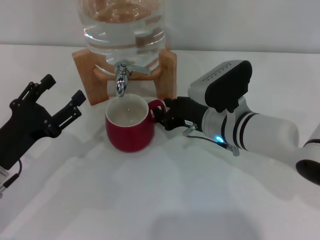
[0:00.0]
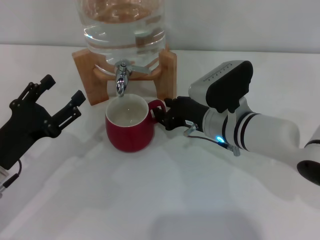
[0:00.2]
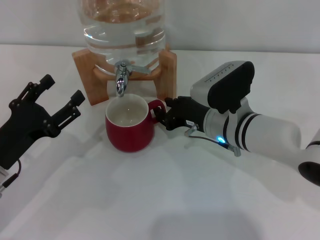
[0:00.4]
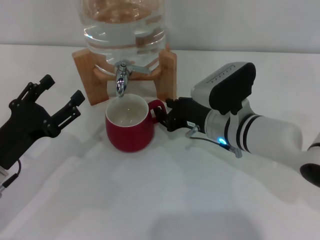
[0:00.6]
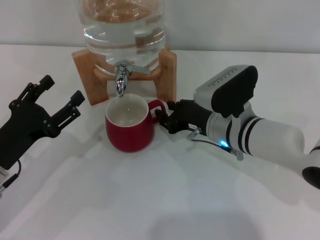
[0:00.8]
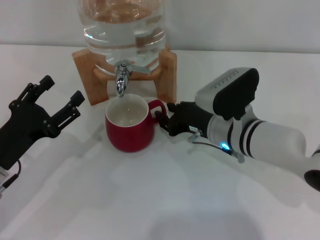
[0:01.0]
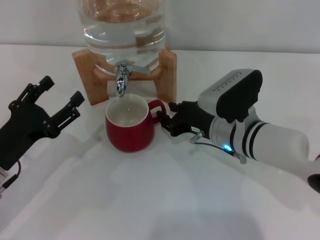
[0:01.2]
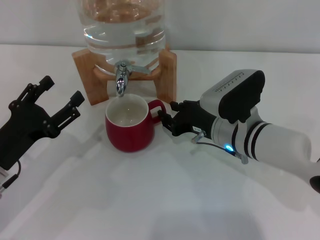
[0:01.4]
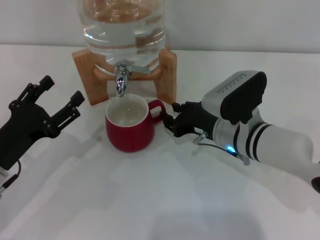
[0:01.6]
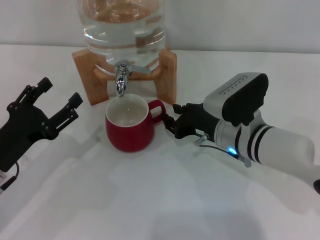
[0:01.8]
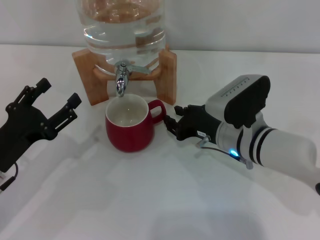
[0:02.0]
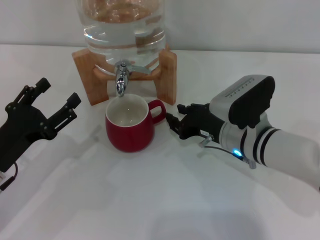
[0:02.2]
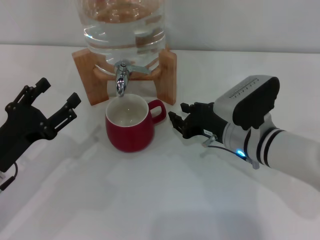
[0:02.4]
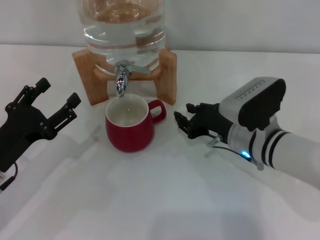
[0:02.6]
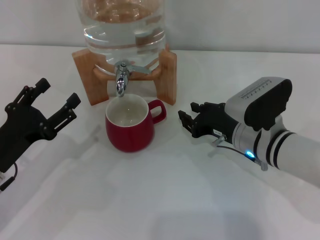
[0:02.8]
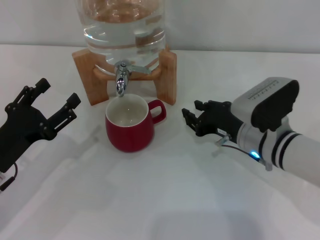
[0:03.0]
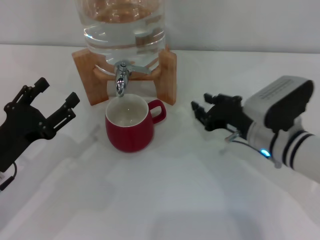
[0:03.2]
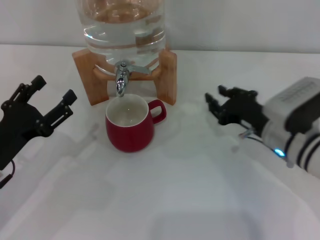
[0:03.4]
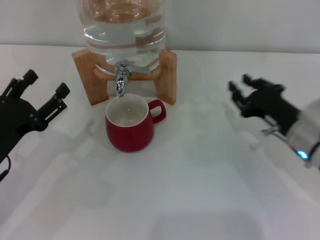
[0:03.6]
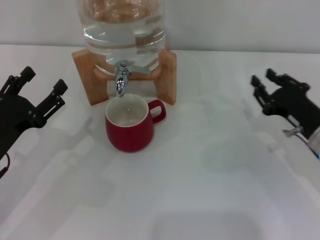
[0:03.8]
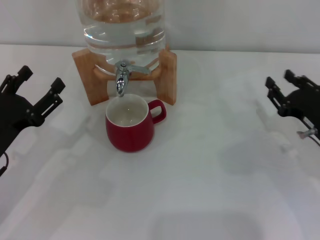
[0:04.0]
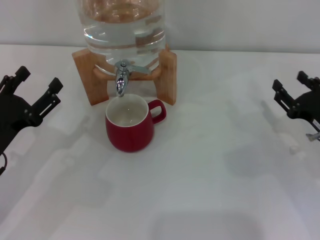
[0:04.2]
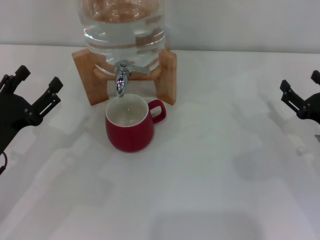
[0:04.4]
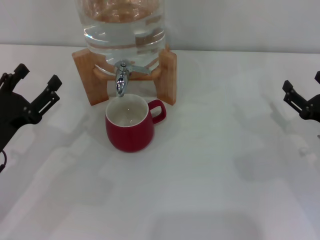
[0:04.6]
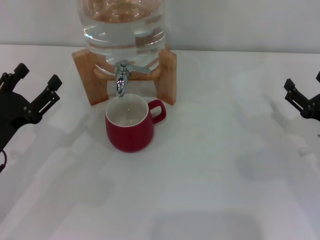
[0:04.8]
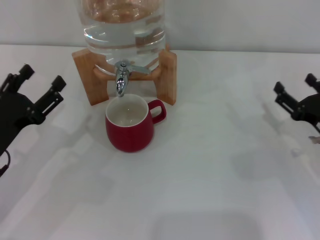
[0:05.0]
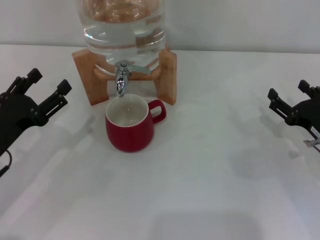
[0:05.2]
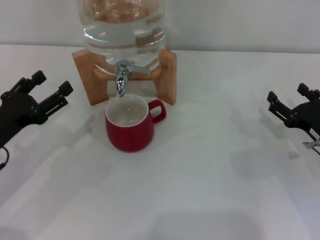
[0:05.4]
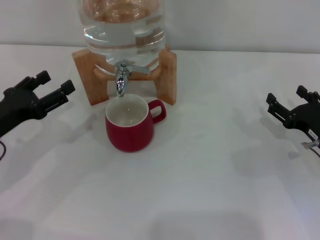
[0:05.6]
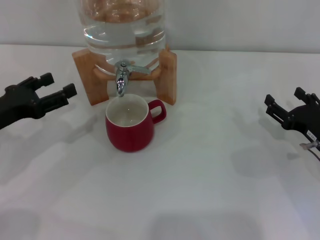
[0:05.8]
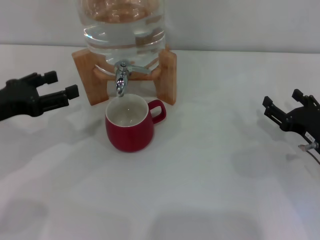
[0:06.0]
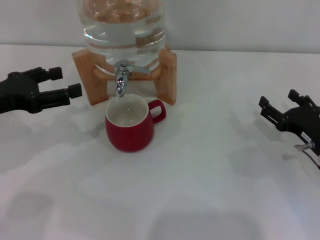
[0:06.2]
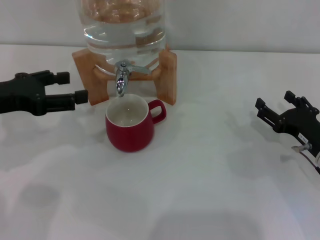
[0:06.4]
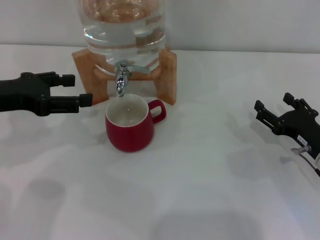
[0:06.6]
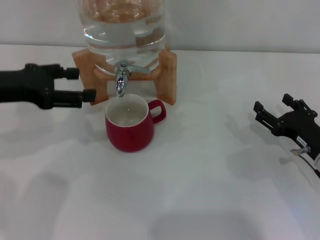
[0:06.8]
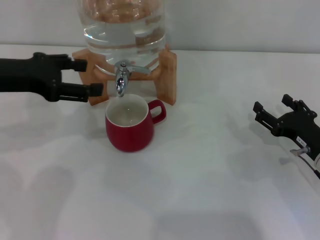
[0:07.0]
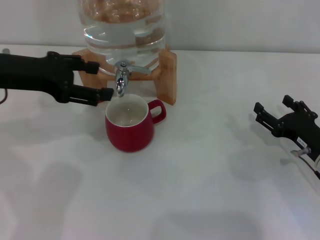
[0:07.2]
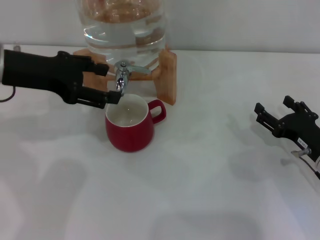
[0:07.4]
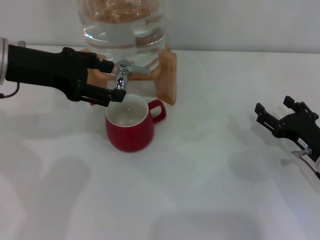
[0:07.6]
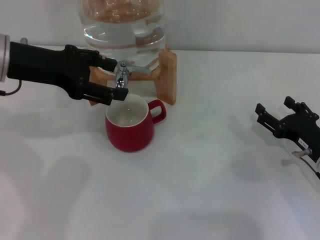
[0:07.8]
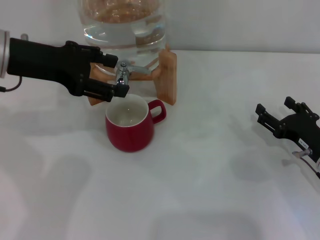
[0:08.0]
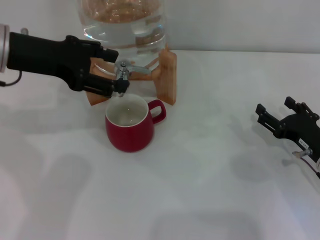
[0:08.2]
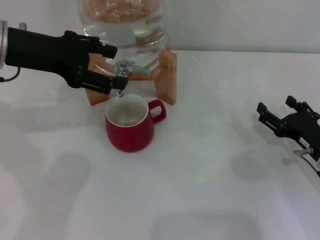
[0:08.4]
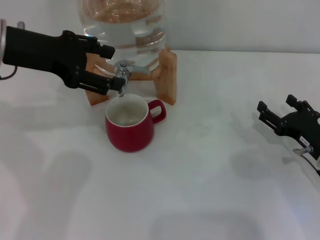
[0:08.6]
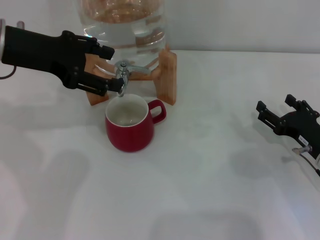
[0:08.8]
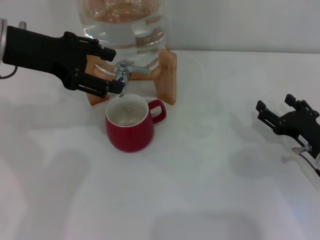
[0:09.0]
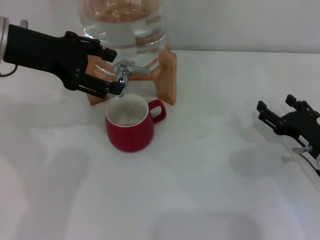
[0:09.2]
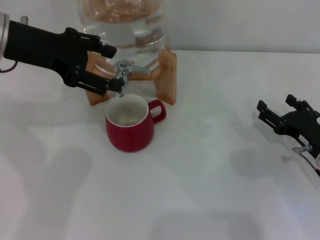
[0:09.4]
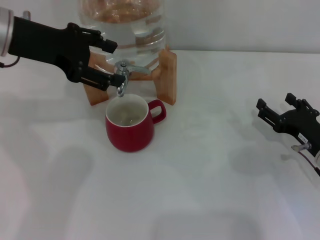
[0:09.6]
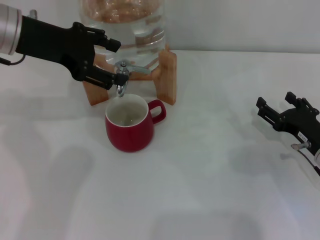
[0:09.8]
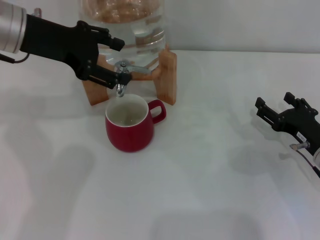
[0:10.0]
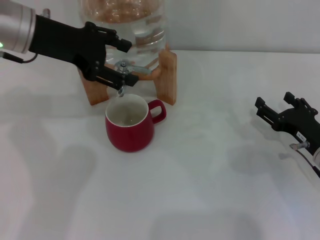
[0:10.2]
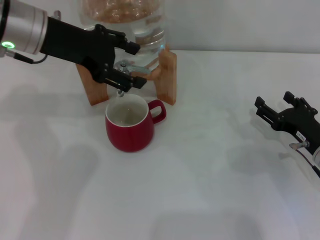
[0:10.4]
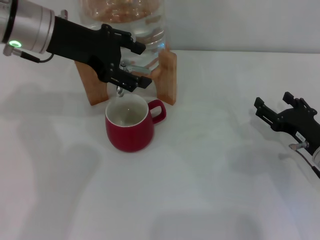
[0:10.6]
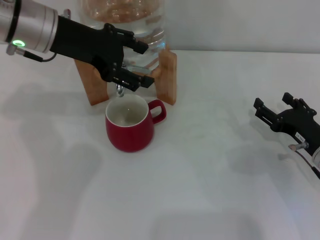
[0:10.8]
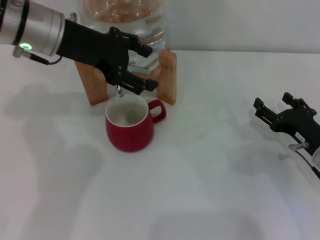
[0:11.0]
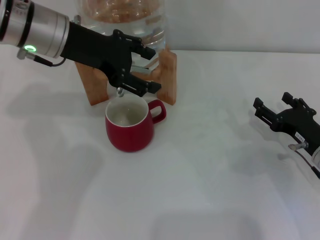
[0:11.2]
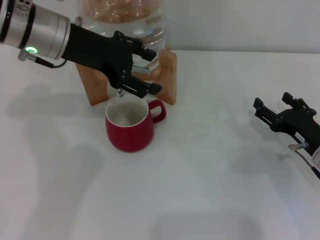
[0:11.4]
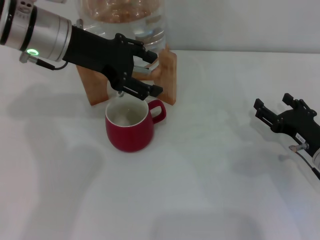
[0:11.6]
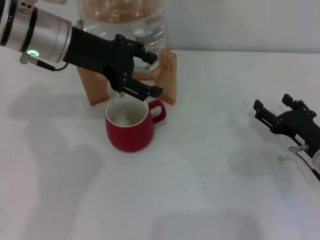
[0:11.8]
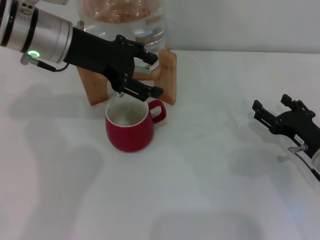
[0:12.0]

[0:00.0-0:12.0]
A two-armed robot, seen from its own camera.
Task of the whole recording: the right gripper pick up the red cup and place it horizontally under the faucet, the left gripper turn on the faucet to fill the cup, and then turn off the faucet.
Step, 0:00.0 to 0:02.6: Move the cup beneath the water dispenser nozzle with the right gripper.
0:00.0 to 0:01.6: The grippers make only small movements.
0:01.6 to 0:03.0: There are only small adjustments of the grippers.
0:03.0 to 0:04.4: The right gripper goes some 15 cm to the right, and opens up.
0:04.4 to 0:06.0: The left gripper is displaced upward by about 5 cm.
0:06.0 to 0:07.6: The left gripper travels upward, to the right and forward by roughly 15 cm.
0:07.6 to 0:09.0: The grippers move only a little.
0:09.0 to 0:10.4: The grippers make only small movements.
0:10.4 to 0:12.0: The grippers move only a little.

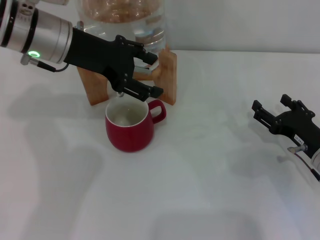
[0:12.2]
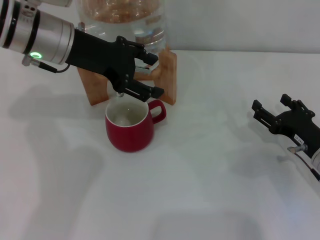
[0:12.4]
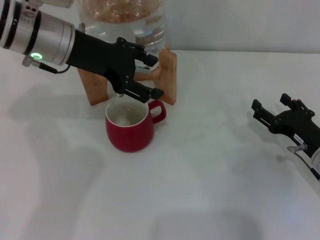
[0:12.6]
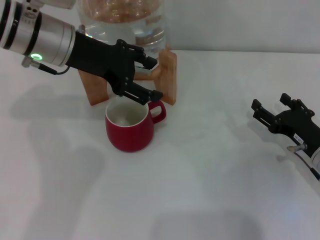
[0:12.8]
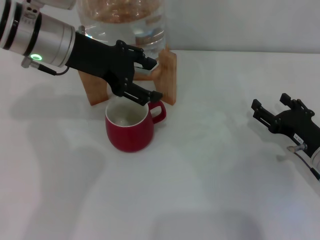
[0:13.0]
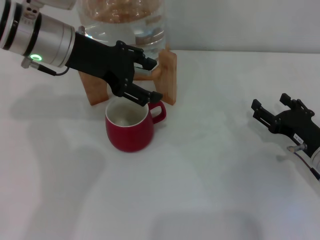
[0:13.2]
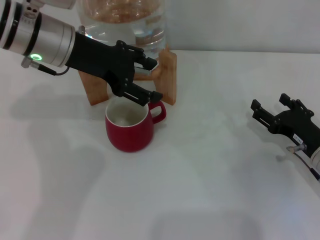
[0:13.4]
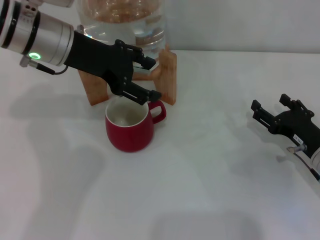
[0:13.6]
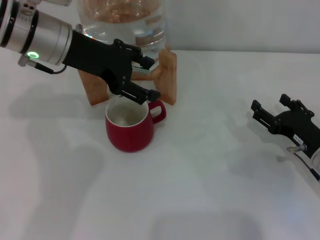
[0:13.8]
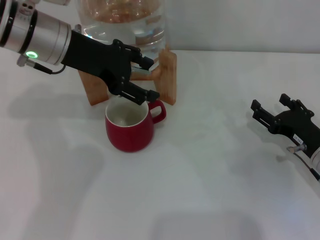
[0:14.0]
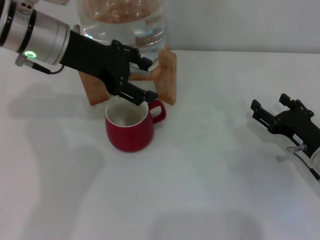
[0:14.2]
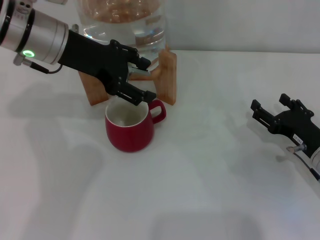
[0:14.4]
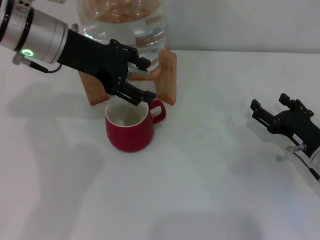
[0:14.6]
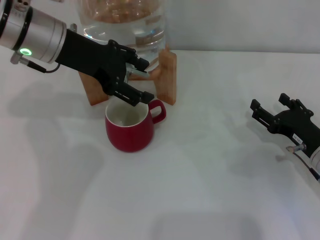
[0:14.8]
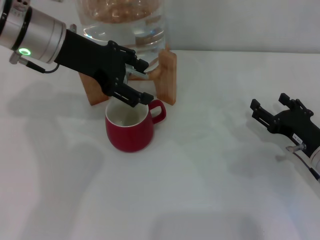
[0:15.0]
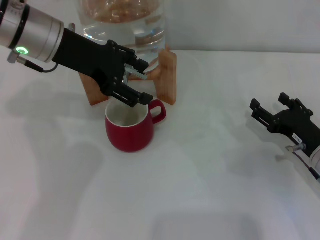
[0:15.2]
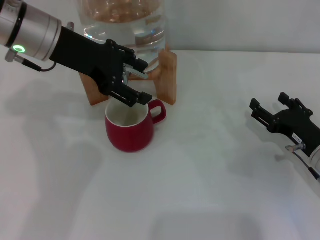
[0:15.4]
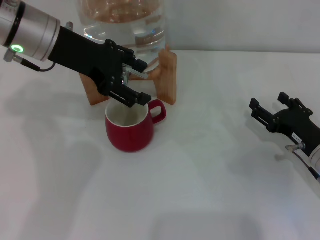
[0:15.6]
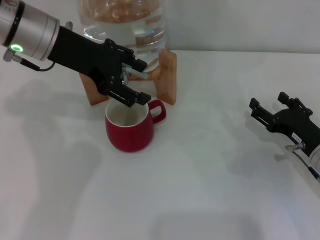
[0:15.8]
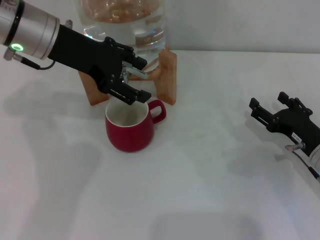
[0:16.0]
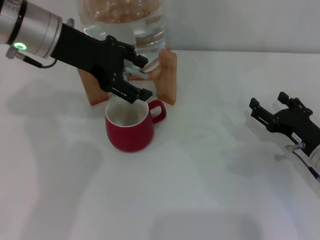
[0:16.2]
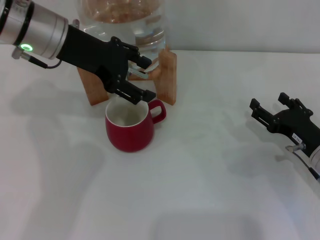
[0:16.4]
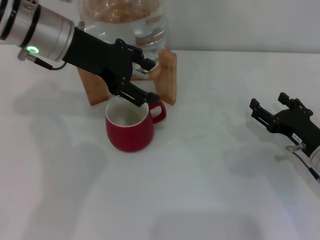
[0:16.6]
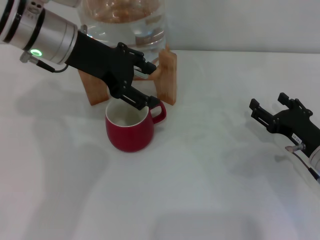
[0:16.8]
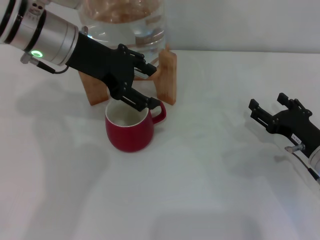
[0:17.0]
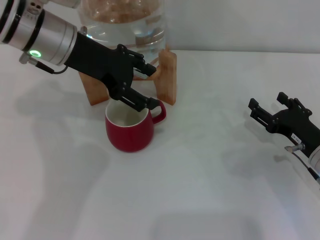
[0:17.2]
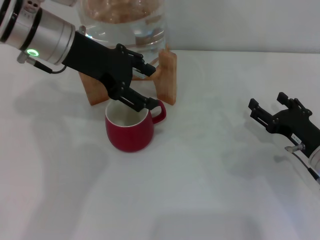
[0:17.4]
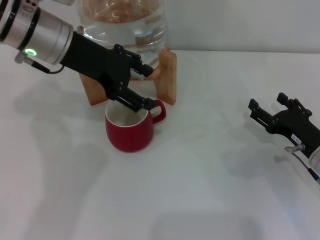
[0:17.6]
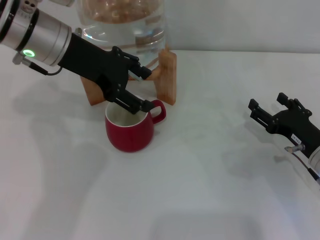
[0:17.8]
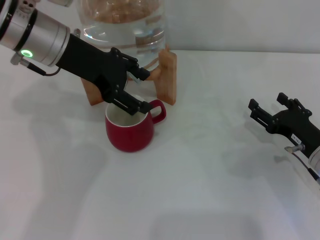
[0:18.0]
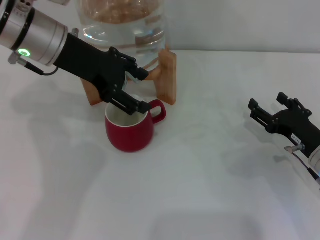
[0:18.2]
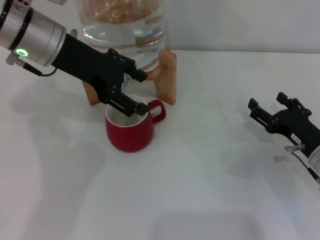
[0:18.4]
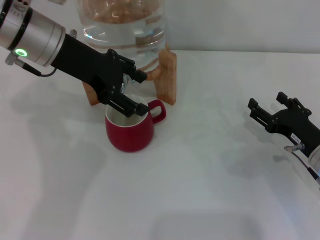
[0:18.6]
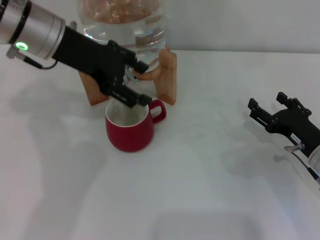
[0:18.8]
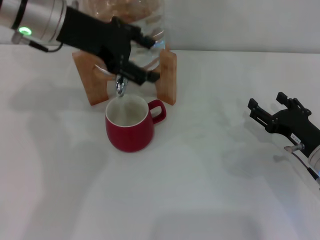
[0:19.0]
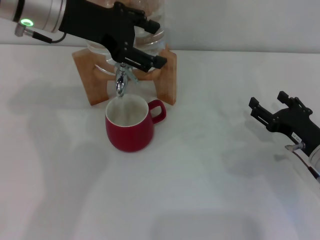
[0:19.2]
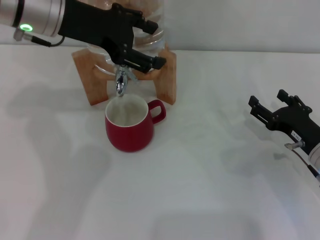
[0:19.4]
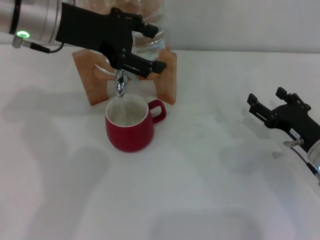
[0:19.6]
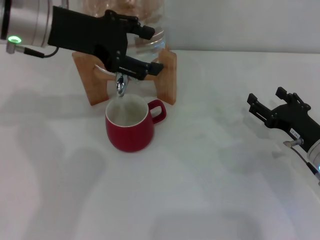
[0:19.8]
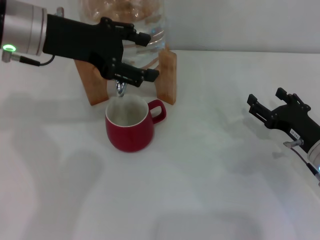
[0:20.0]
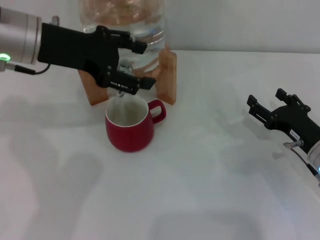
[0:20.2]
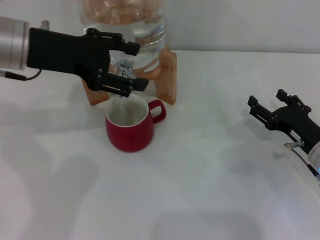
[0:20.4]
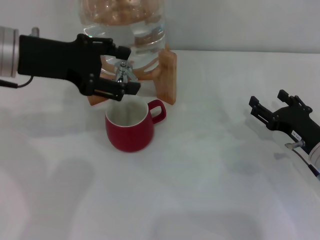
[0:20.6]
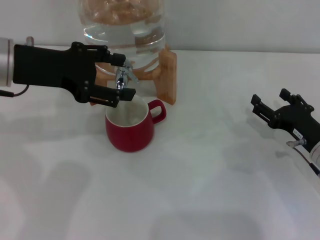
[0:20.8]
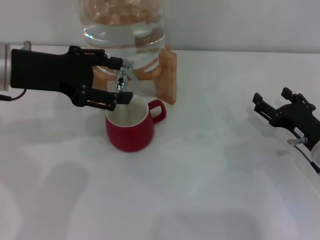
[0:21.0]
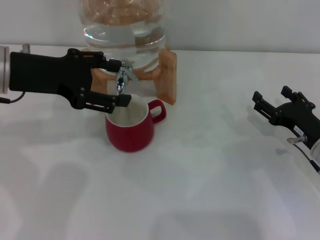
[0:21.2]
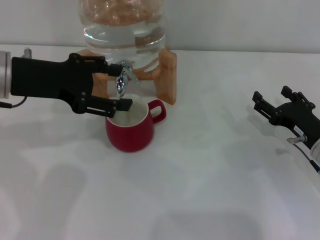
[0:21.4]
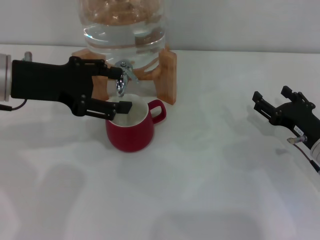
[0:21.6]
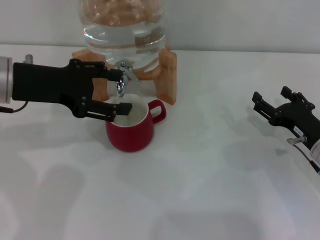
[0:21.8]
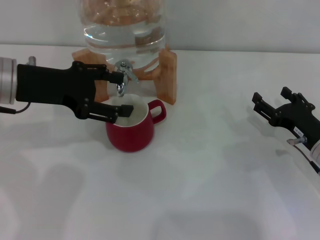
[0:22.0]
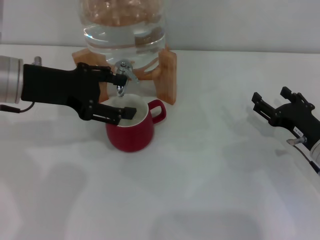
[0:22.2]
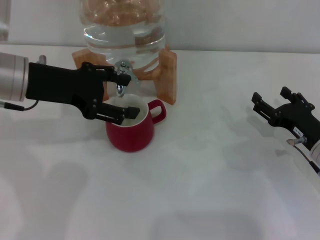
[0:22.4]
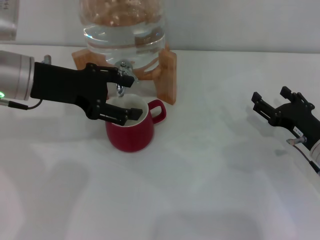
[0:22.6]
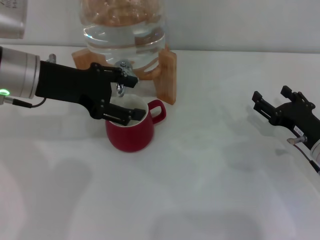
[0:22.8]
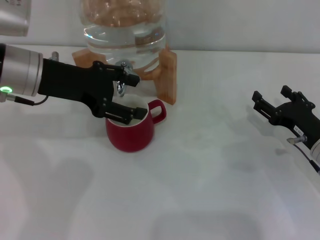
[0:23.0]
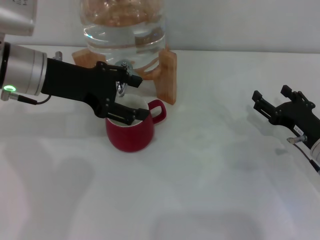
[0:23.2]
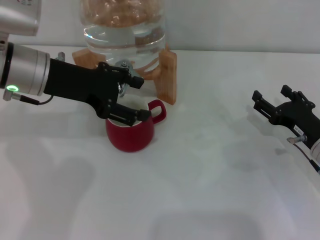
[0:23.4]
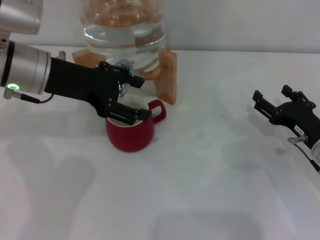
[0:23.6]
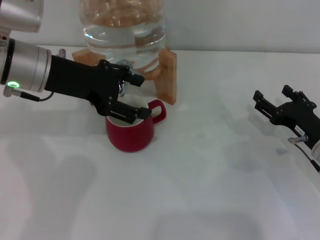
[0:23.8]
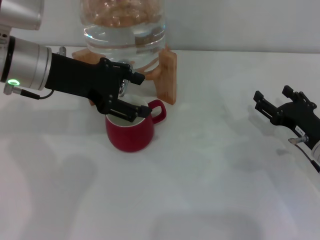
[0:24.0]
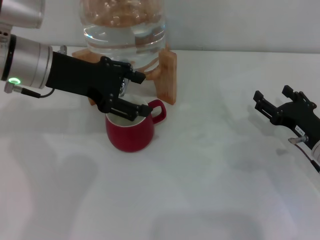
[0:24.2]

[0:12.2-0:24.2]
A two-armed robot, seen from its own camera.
Task of the whole recording: the right gripper pick up the red cup and place it horizontally under the faucet, the left gripper turn on the faucet to fill the cup, and then turn off the faucet.
Step, 0:12.2 to 0:18.6: Open the dispenser valve and fill the cup with water with the left gripper.
0:12.2 to 0:13.8: The two grippers keep their place.
0:13.8 to 0:15.2: Both grippers stay put.
0:15.2 to 0:16.6: Neither gripper changes place.
0:16.6 to 0:18.2: Neither gripper changes place.
0:18.2 to 0:19.8: There are only small adjustments of the grippers.
0:19.8 to 0:21.2: The left gripper is displaced to the left by approximately 5 cm.
0:21.2 to 0:24.2: The grippers move only a little.
